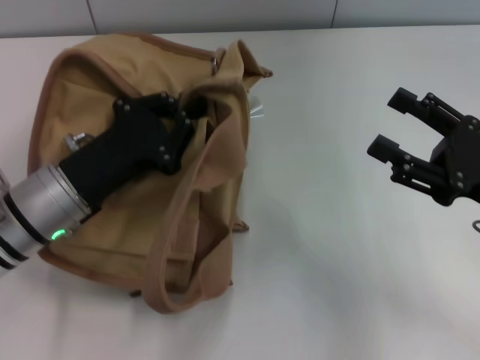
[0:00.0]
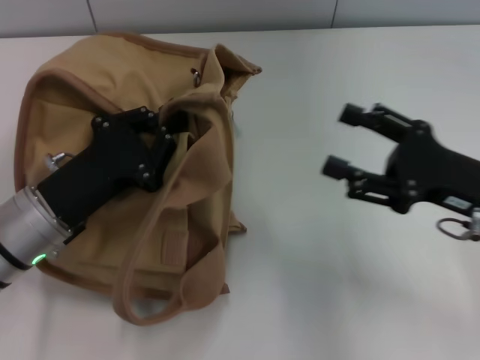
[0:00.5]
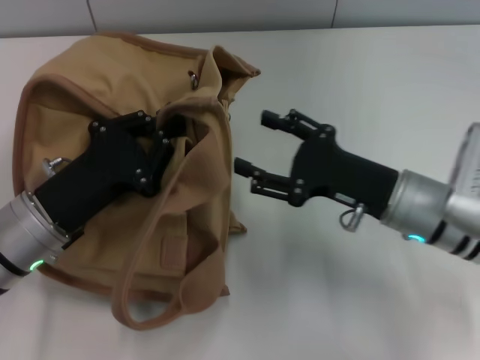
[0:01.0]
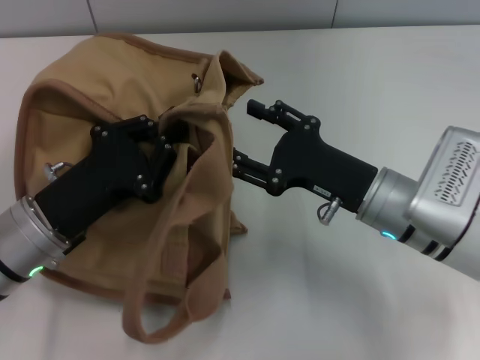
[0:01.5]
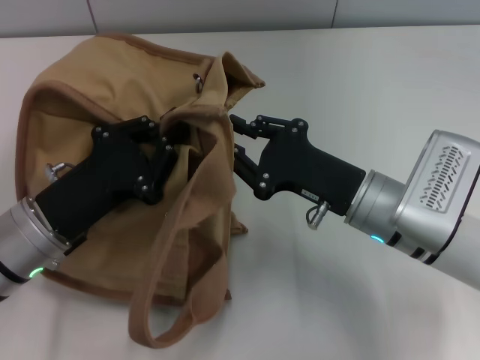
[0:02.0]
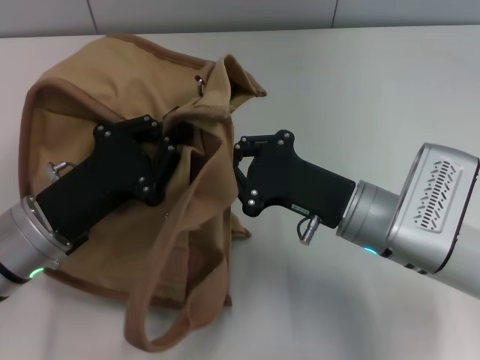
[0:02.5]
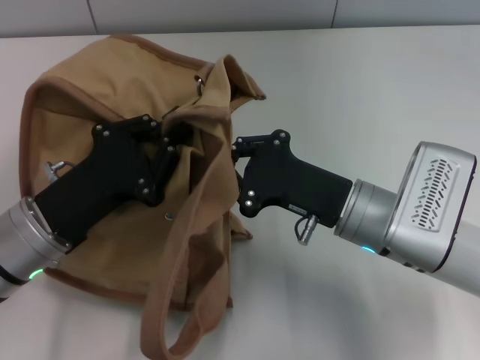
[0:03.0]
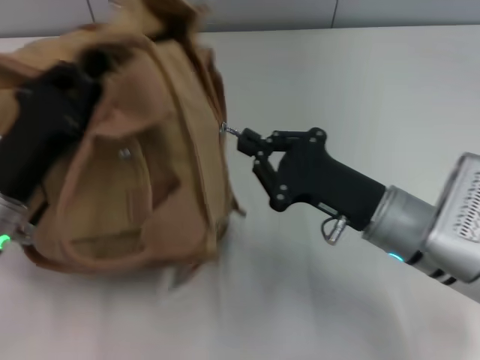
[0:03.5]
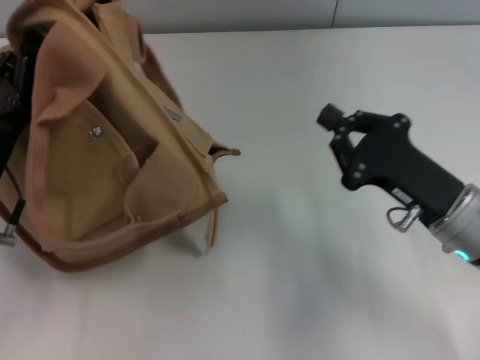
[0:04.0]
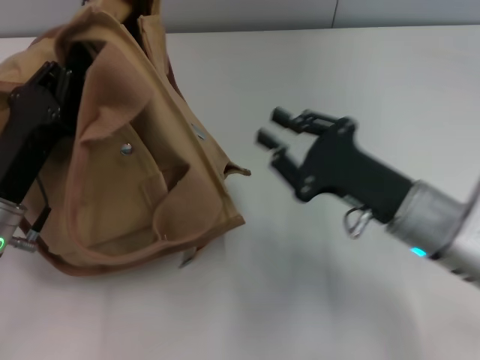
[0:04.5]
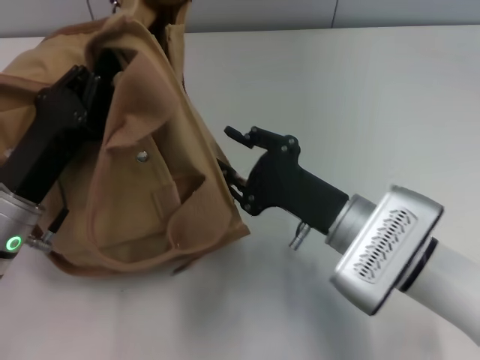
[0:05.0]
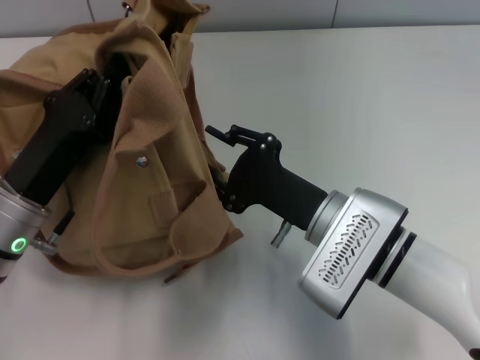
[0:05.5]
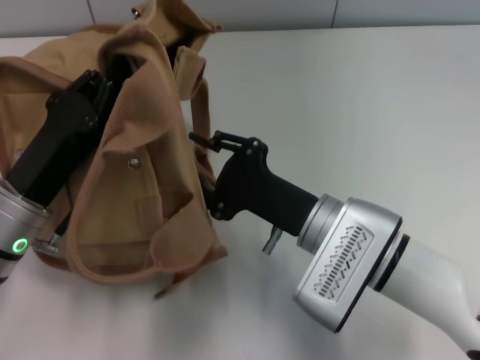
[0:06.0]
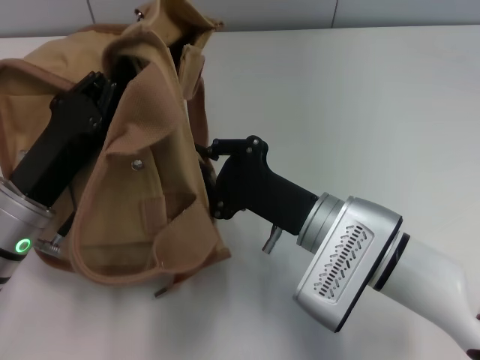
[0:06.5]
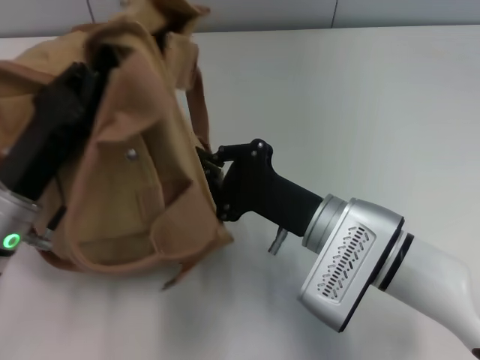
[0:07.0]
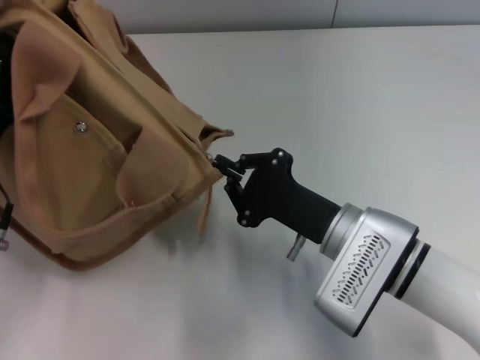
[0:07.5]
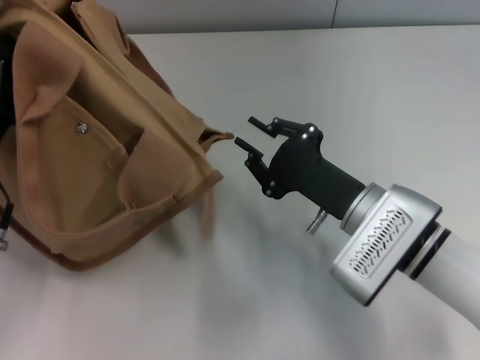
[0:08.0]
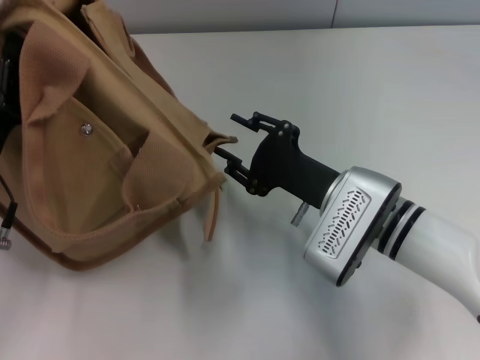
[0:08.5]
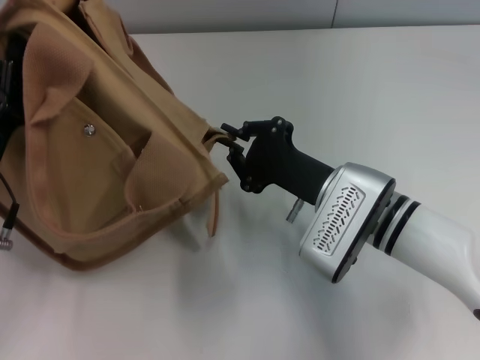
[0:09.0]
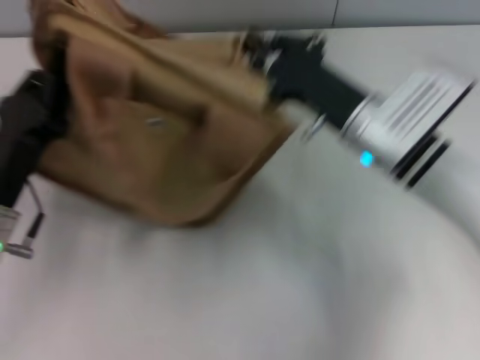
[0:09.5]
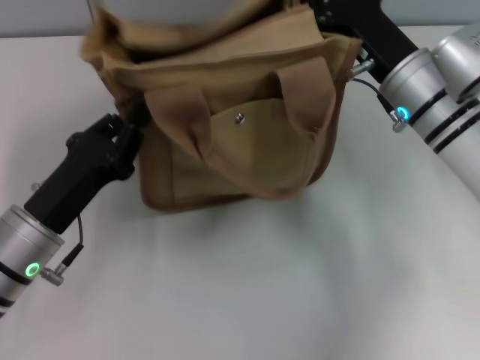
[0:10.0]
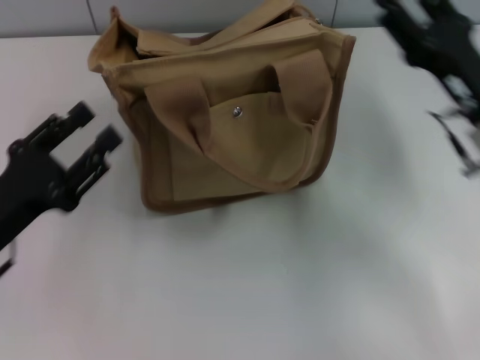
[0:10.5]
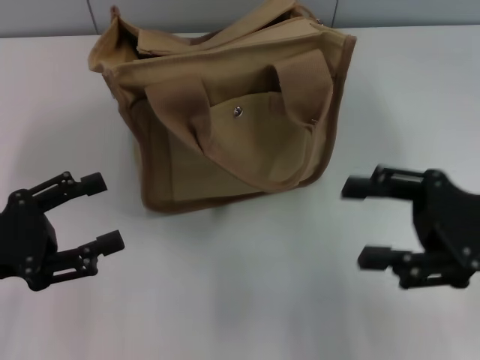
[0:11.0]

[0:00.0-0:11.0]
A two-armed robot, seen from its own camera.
Step, 0:00.0 to 0:07.5: Pull open the zipper with your right hand.
Step, 0:08.0 to 0:10.0: Grab the bag with your left hand.
0:00.0 to 0:02.0: The right gripper goes about 15 cm to the left, and closes.
0:02.0 to 0:03.5: The right gripper closes its fingers.
0:03.5 to 0:05.5: The right gripper moves to the left, about 5 cm, and opens.
0:05.5 to 0:07.5: The right gripper closes its fingers.
0:07.5 to 0:09.0: The right gripper opens and closes again.
0:09.0 to 0:11.0: The right gripper goes about 15 cm to the right and upward, and opens; the left gripper goes some 5 cm to the left, and opens.
